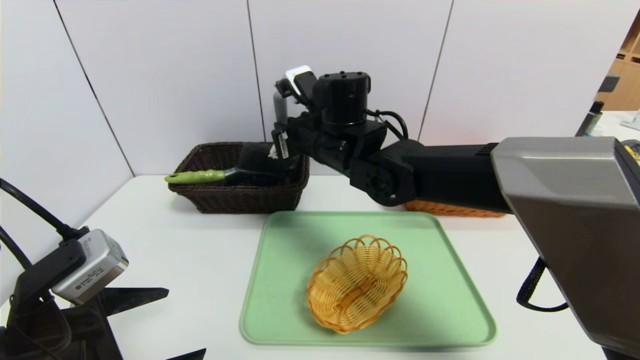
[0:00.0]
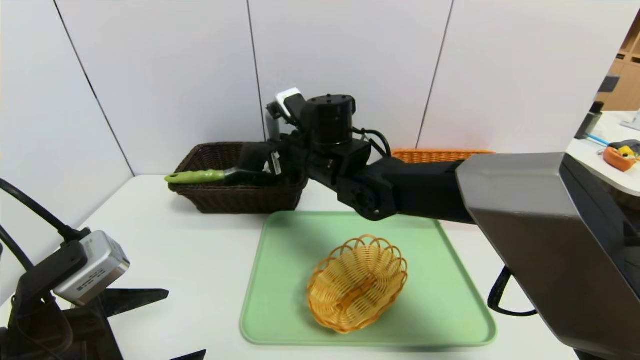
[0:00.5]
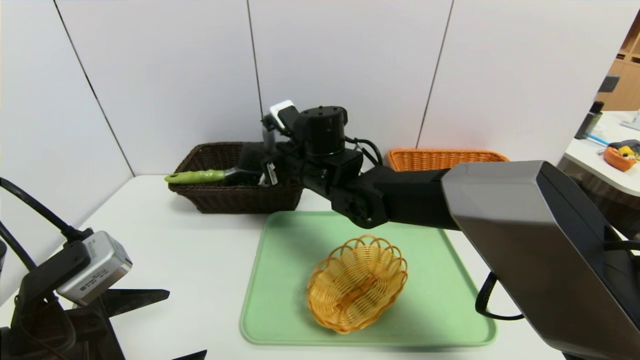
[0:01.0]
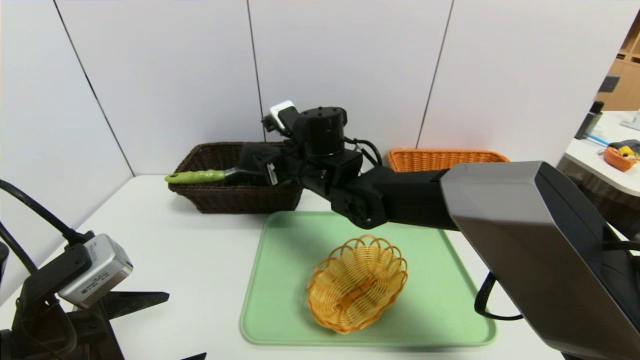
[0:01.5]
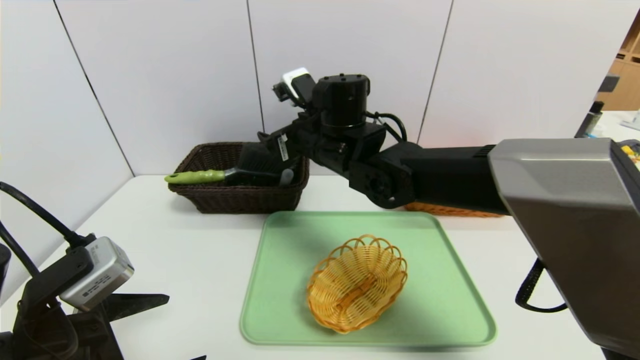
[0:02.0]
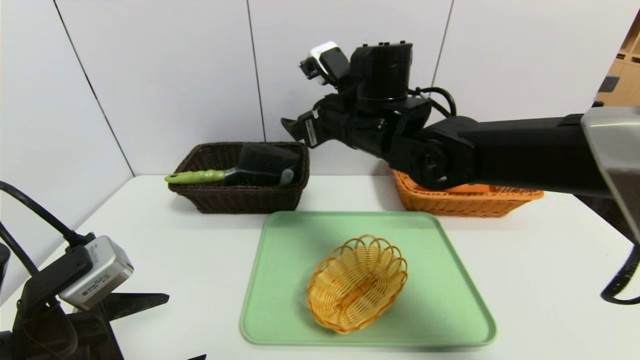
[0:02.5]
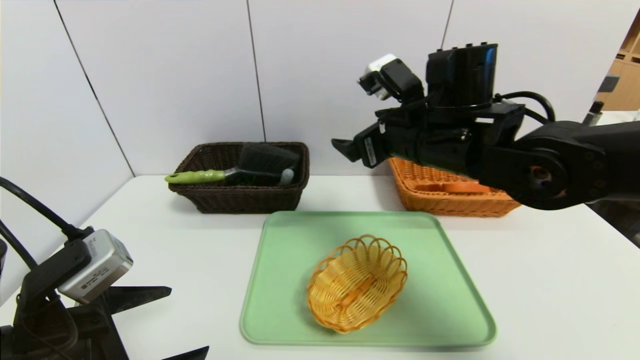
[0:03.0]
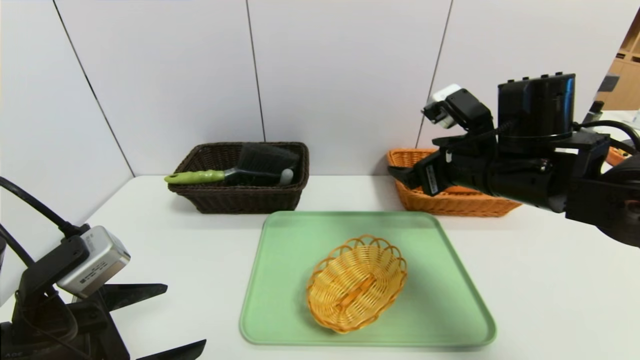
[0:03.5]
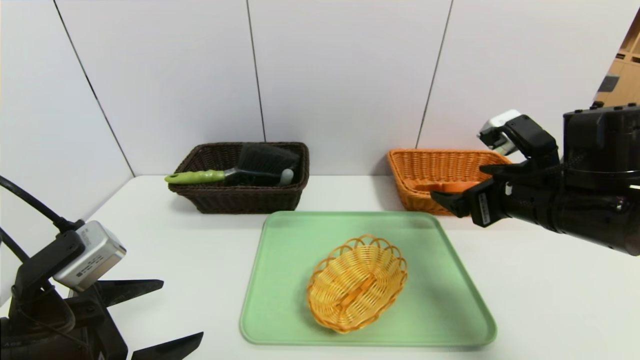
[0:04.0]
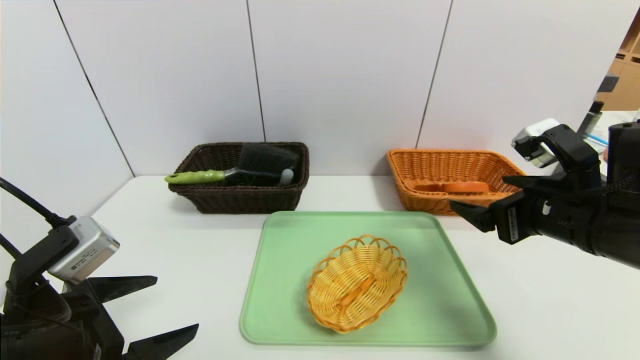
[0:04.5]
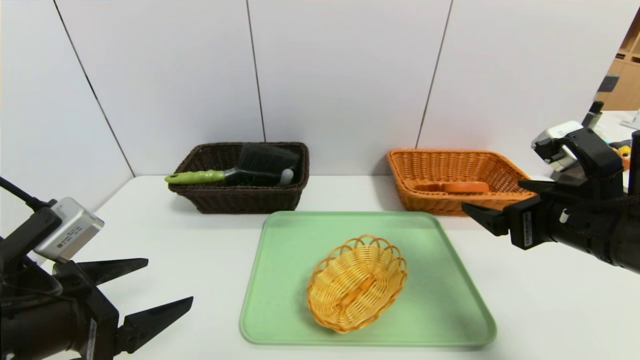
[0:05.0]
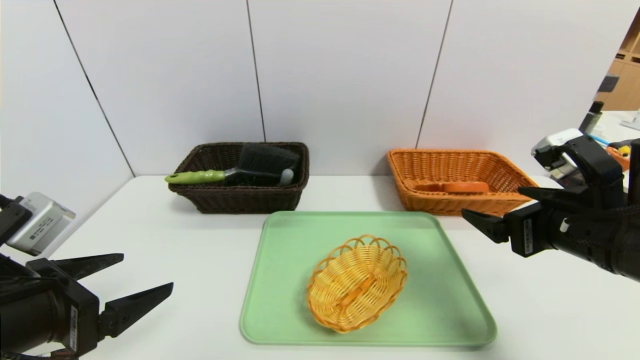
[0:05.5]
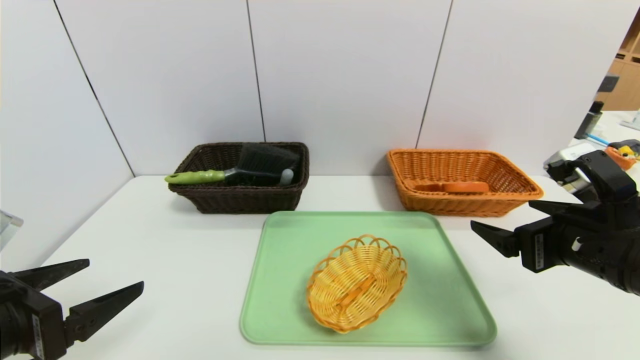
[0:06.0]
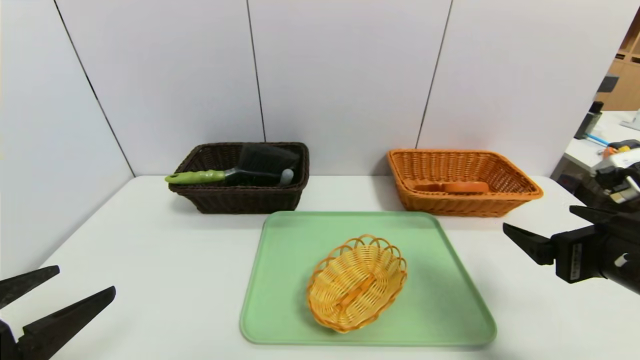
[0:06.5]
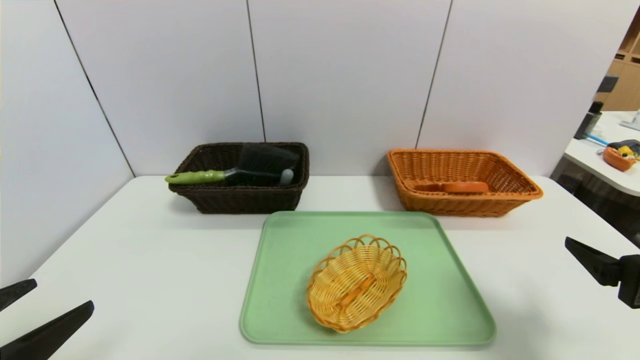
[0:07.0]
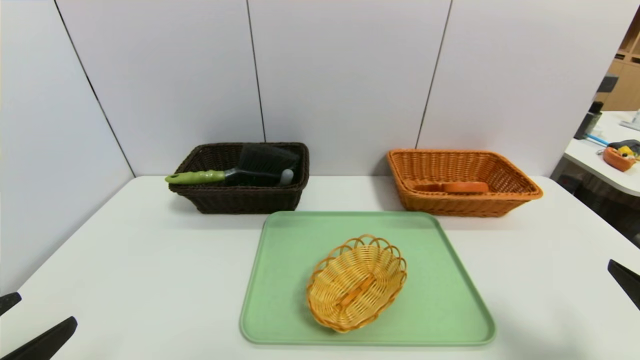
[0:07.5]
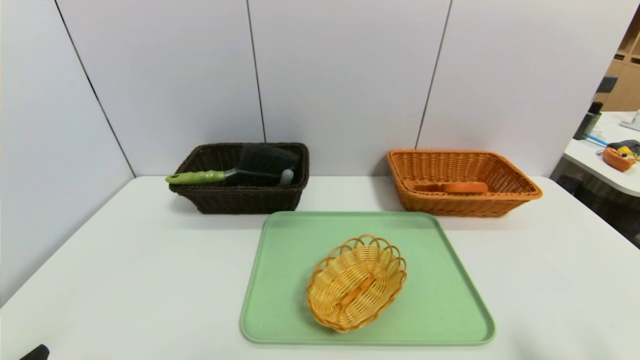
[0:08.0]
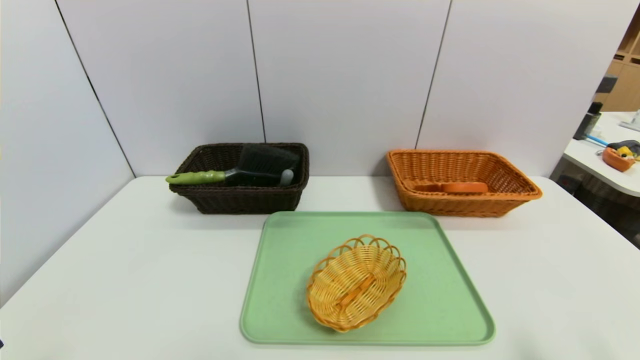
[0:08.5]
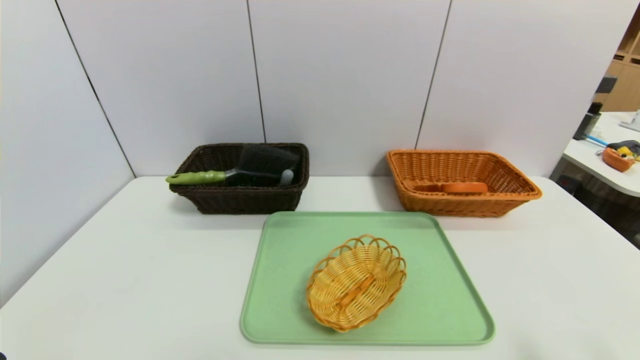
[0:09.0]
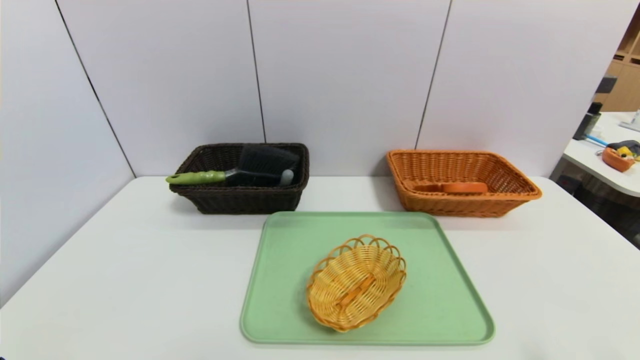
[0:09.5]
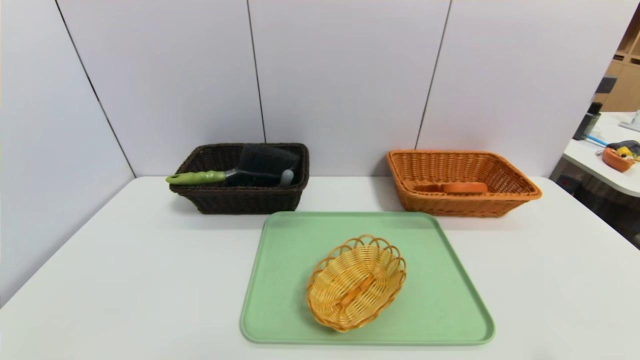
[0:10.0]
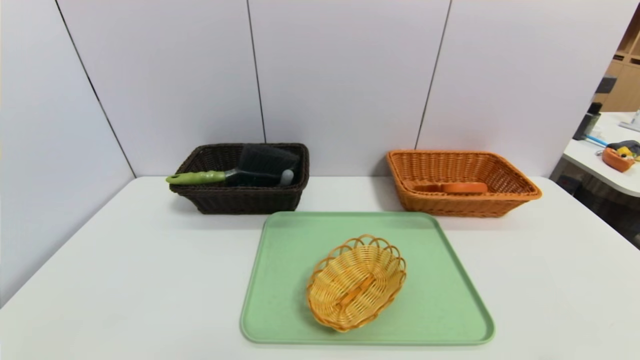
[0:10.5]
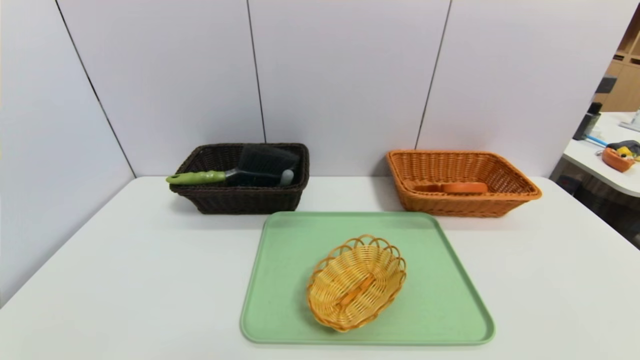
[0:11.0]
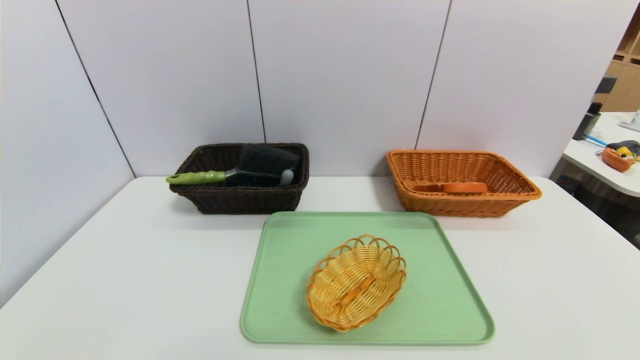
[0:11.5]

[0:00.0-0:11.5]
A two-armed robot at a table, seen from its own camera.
Task of the whole recording: place the food in the right basket with the right gripper, and place the non food items in the left basket with the left gripper.
0:00.0 to 0:02.0: The right gripper opens its fingers.
0:02.0 to 0:04.0: The right gripper heads to the right and backward, covering approximately 25 cm.
0:04.0 to 0:06.0: The right gripper shifts some 5 cm backward.
0:06.0 to 0:07.5: The right gripper moves backward and to the right, approximately 10 cm, while the left gripper goes about 10 cm backward.
0:07.5 to 0:09.5: The grippers both shift backward by roughly 5 cm.

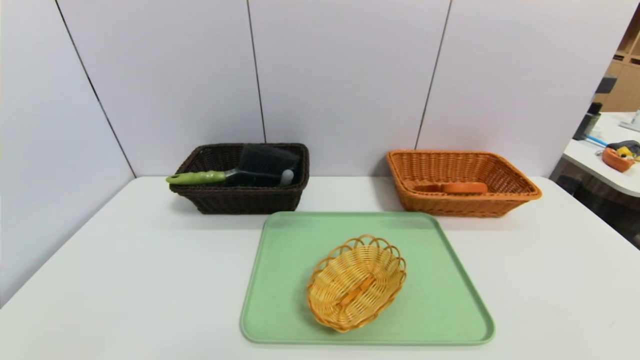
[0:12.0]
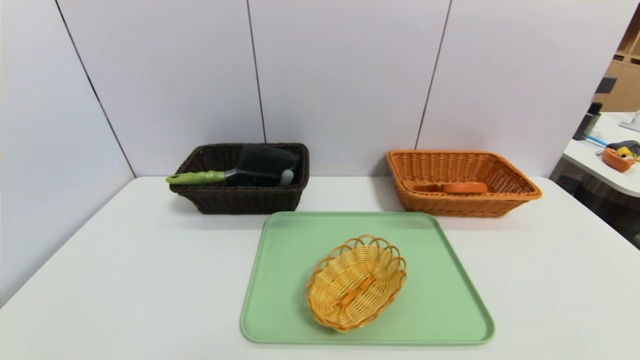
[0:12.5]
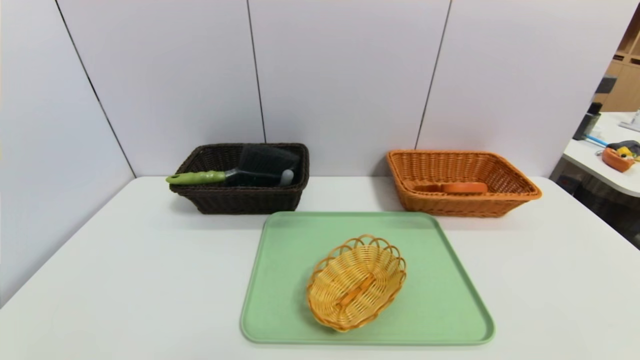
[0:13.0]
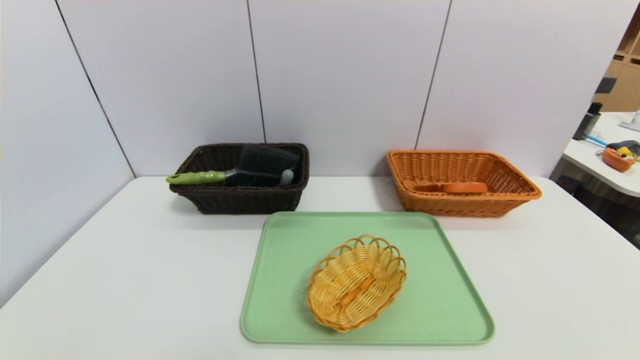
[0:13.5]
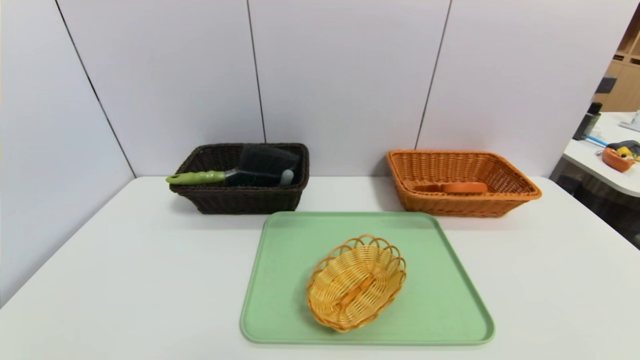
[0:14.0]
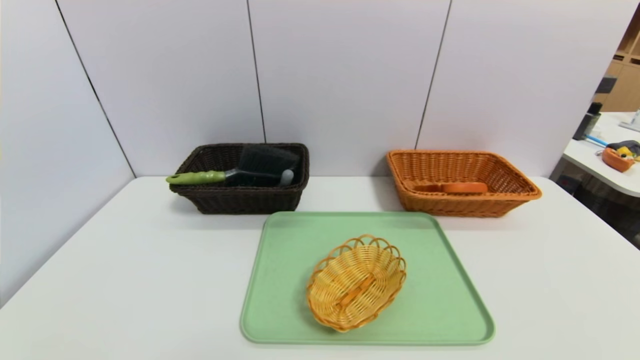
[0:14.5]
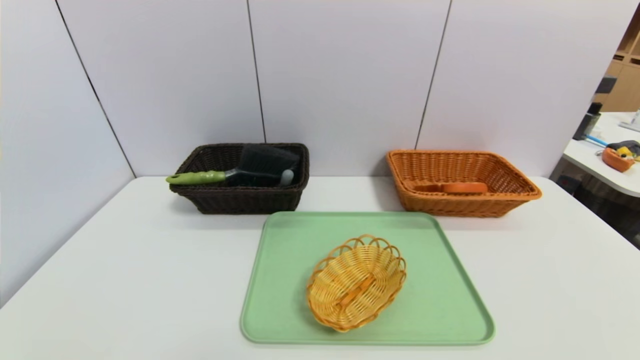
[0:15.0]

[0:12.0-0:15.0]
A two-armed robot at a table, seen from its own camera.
Task of the whole recording: place the food in the right basket with the right gripper, and place the non food items in the left basket with the left gripper.
0:13.5 to 0:15.0: Neither gripper changes place.
